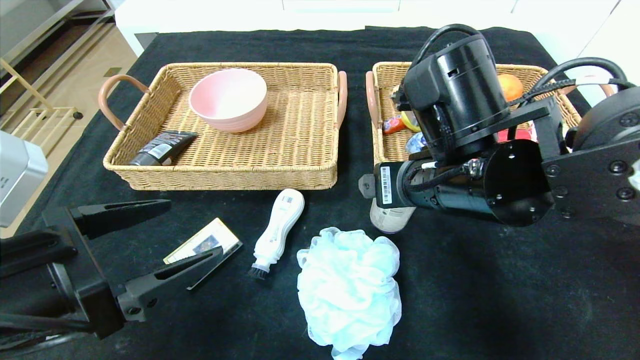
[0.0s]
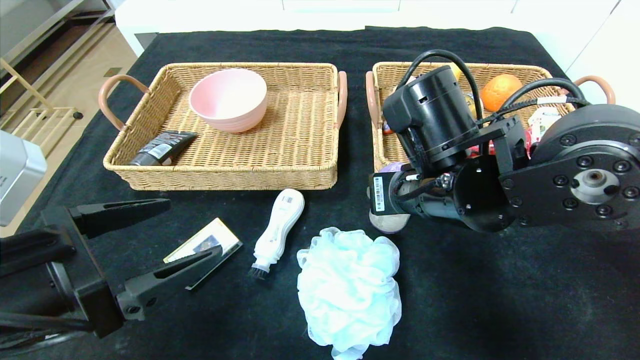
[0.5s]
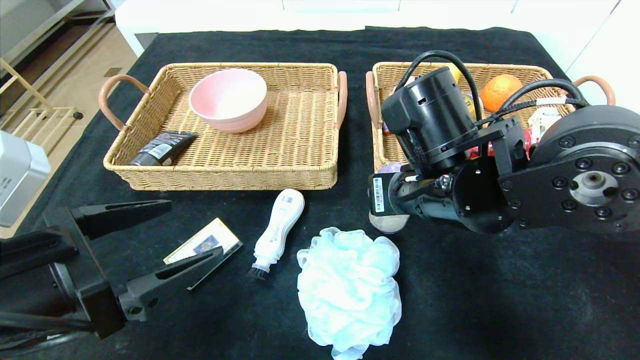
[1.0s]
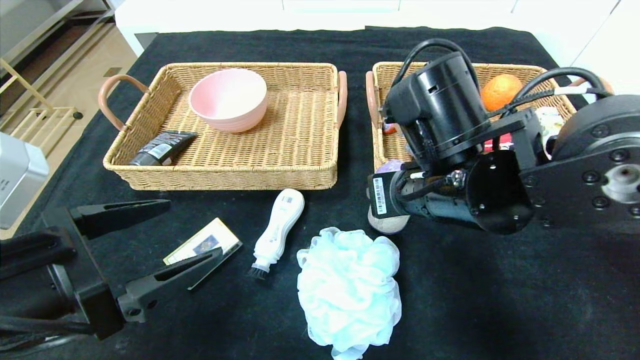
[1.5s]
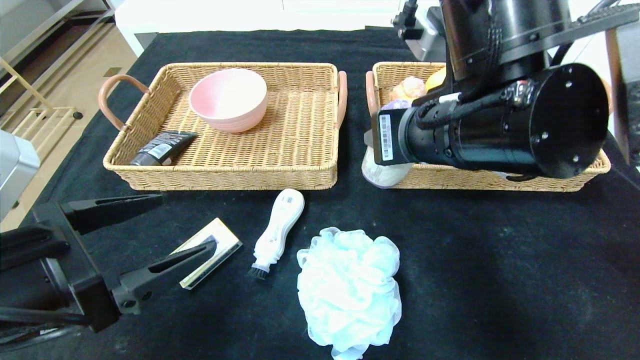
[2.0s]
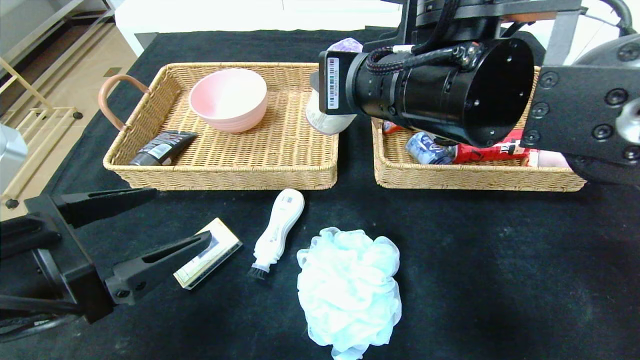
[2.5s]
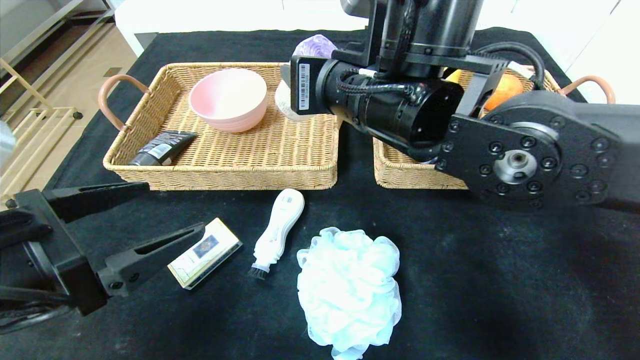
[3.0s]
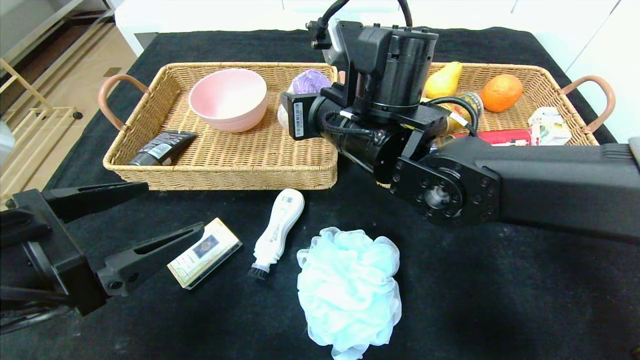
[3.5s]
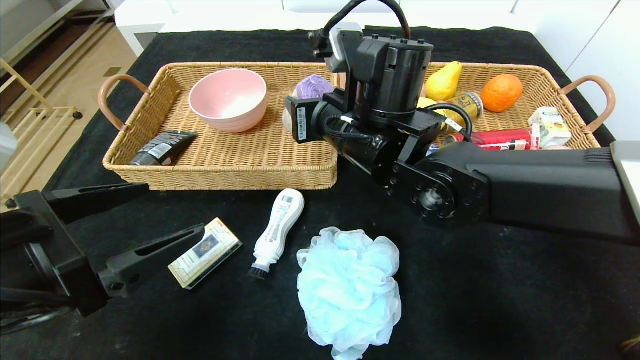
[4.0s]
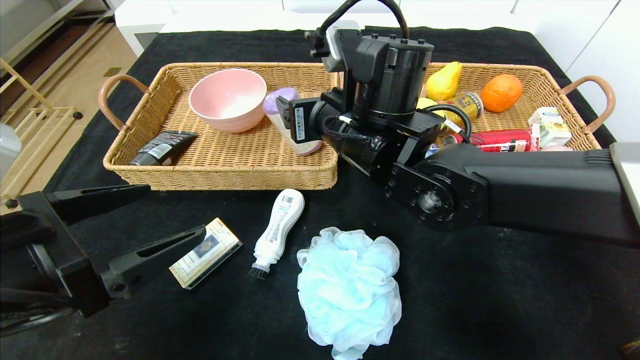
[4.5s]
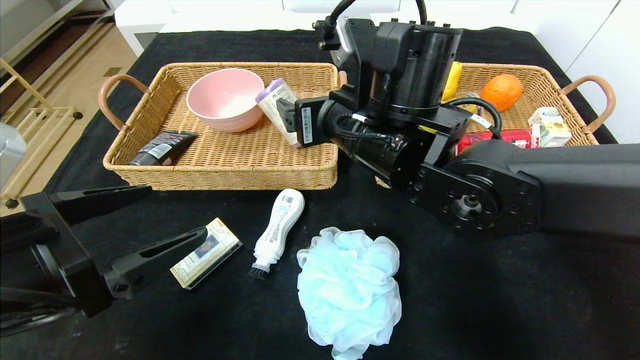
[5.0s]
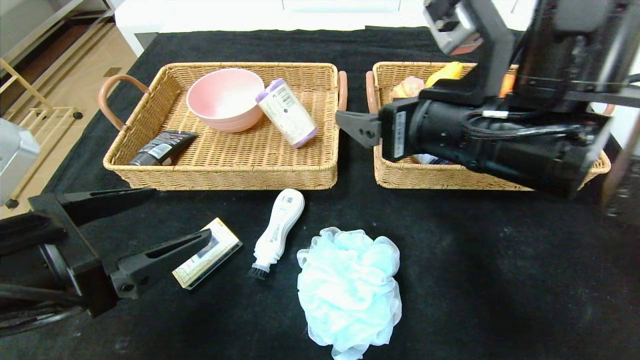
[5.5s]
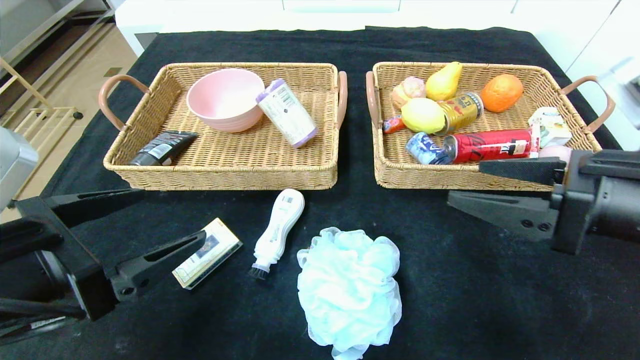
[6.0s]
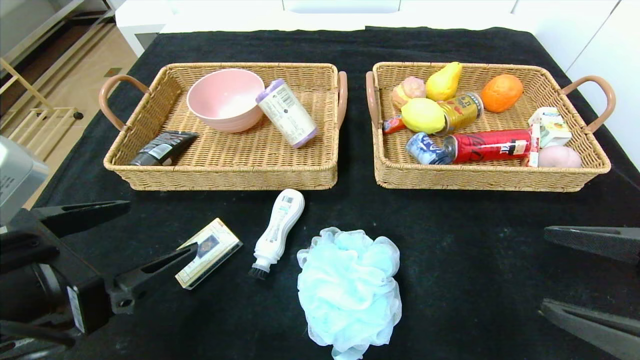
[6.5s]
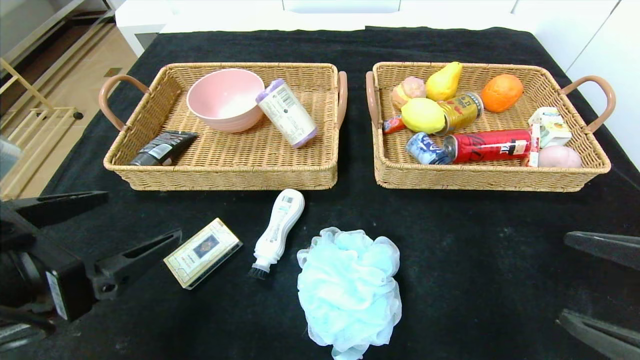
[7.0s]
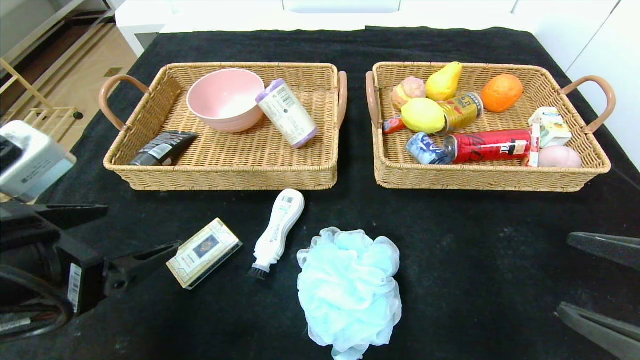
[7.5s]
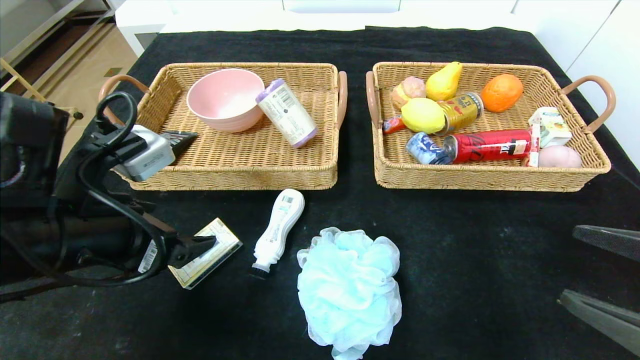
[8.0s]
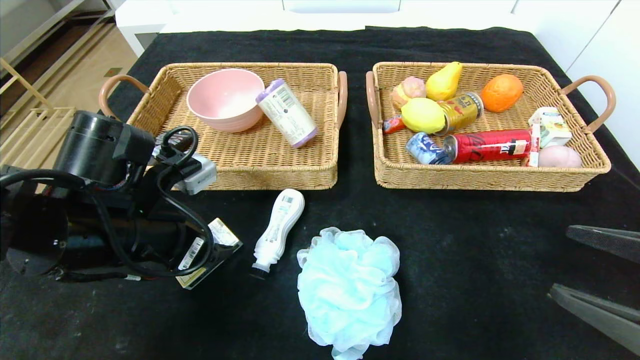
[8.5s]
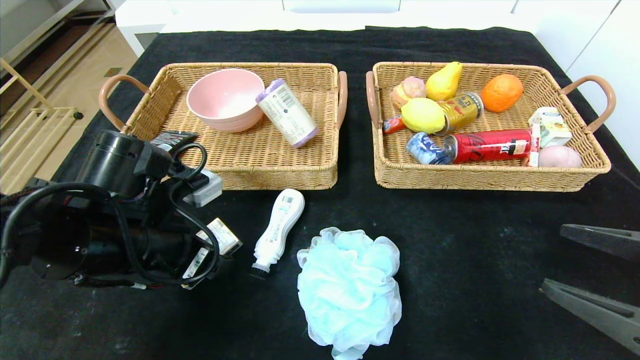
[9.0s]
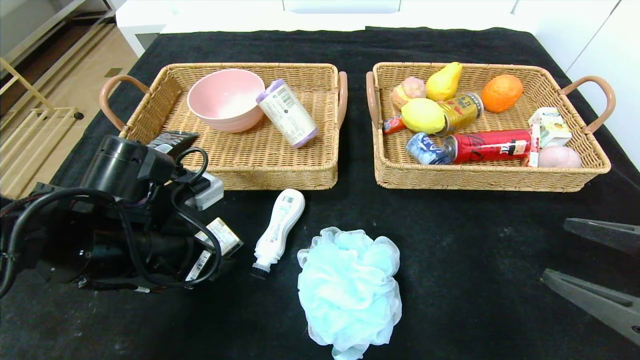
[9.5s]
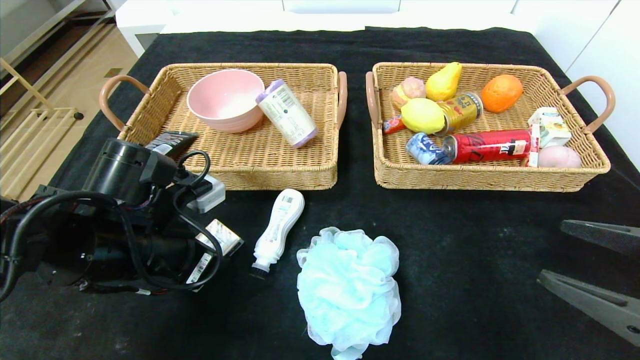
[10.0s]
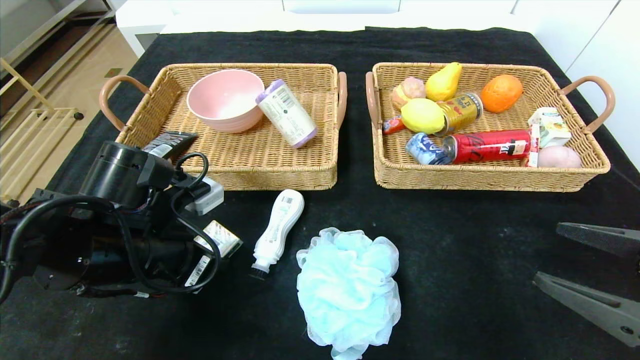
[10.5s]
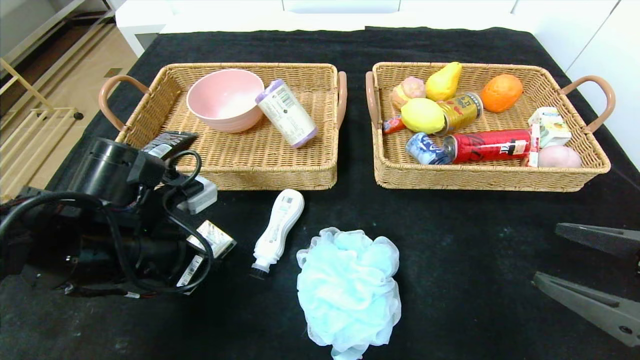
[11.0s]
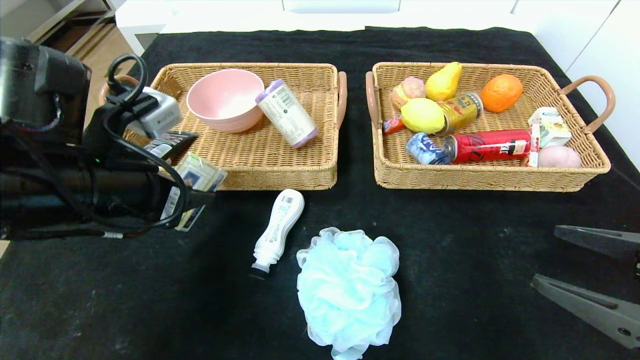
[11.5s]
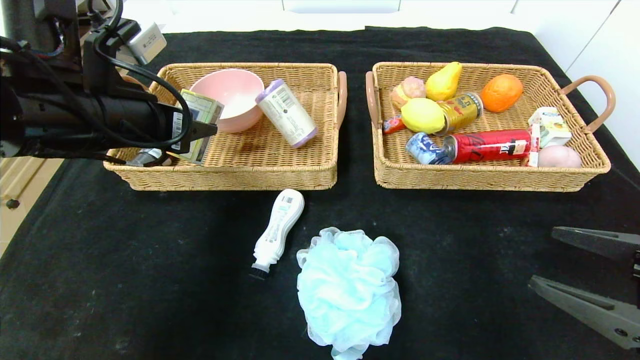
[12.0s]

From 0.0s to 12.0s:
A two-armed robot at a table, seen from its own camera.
From 0.0s to 2.0s: The right gripper is displaced upward by some 5 cm, and closes up.
From 2.0s to 4.0s: The right gripper shifts some 10 cm forward and to the left.
From 4.0s to 6.0s: The right gripper heads to the right and backward, covering approximately 25 cm, and opens its fingers.
From 6.0s to 8.0s: The left gripper is displaced forward by roughly 5 cm. The right gripper heads backward, to the right and downward, covering about 10 cm.
From 8.0s to 10.0s: The left gripper shifts some 5 cm downward, and closes its fingers.
From 10.0s to 12.0s: The left gripper goes roughly 15 cm upward.

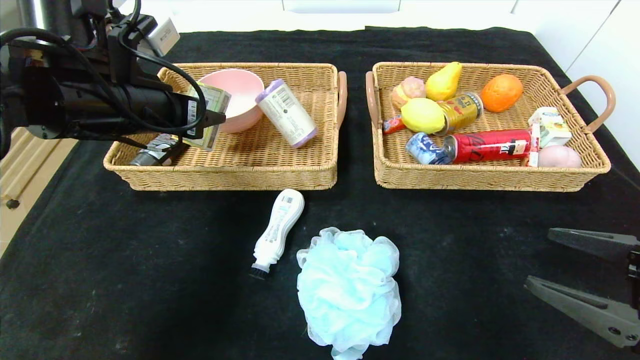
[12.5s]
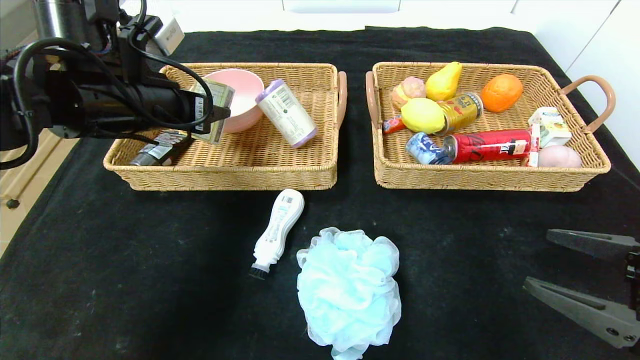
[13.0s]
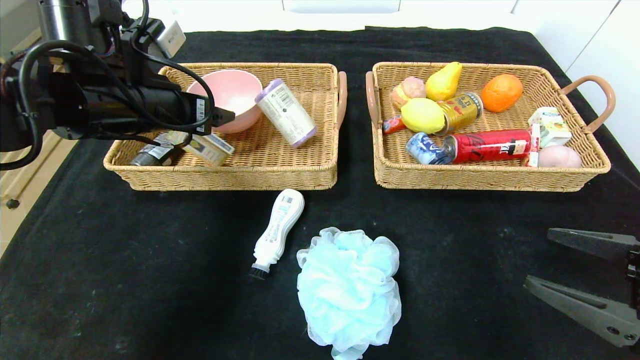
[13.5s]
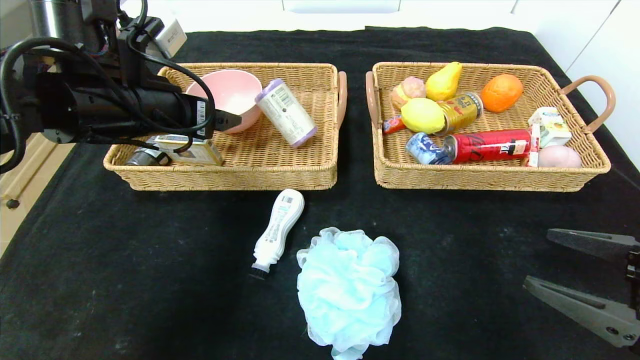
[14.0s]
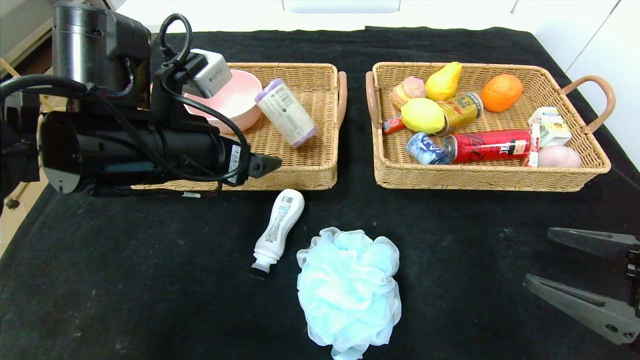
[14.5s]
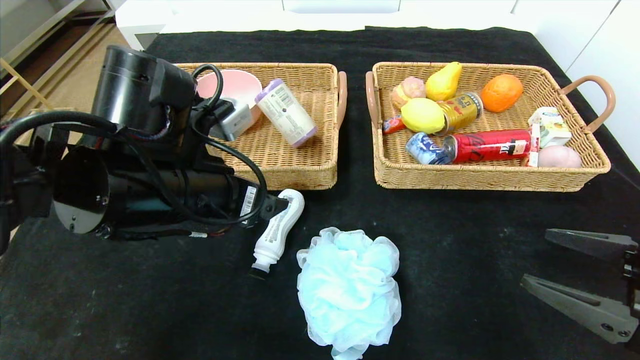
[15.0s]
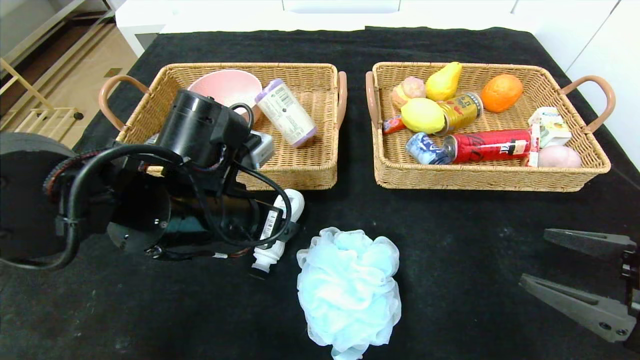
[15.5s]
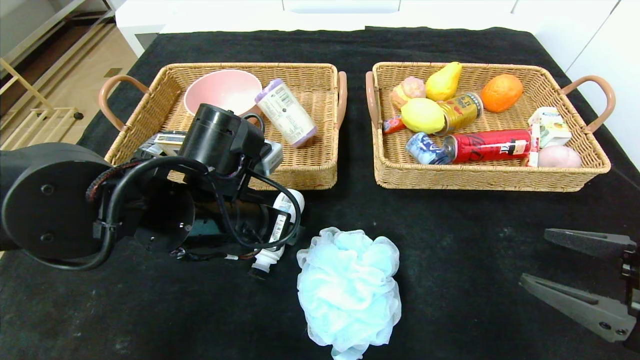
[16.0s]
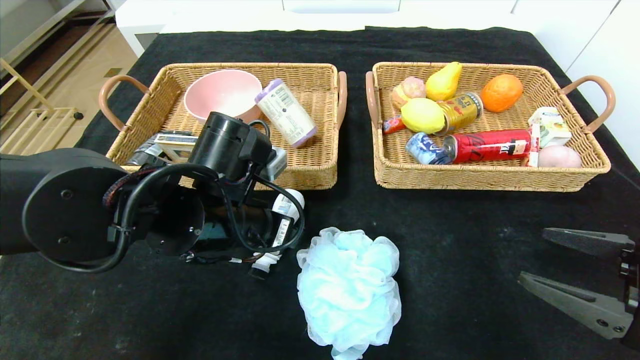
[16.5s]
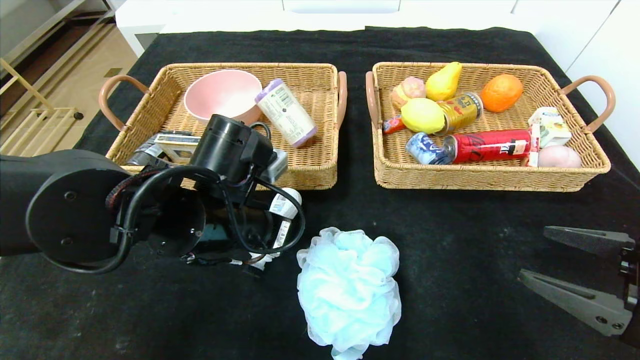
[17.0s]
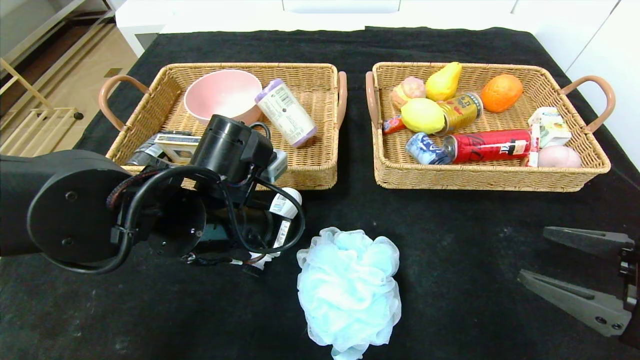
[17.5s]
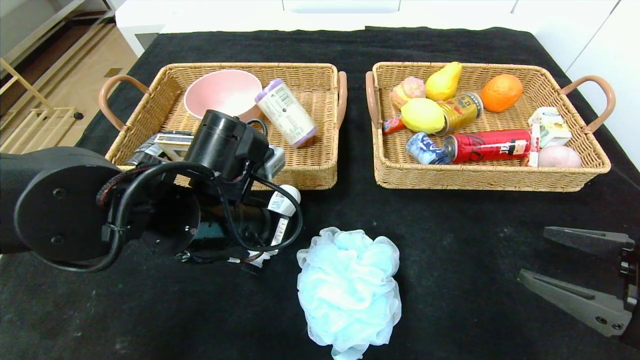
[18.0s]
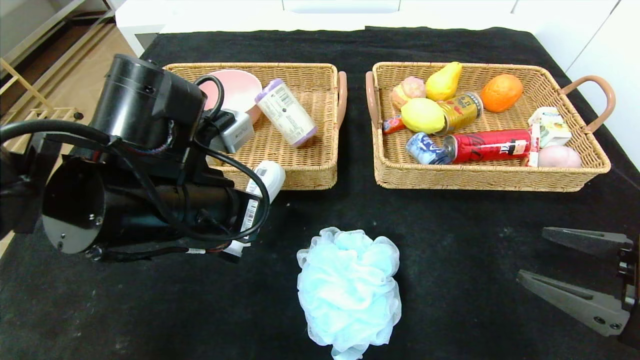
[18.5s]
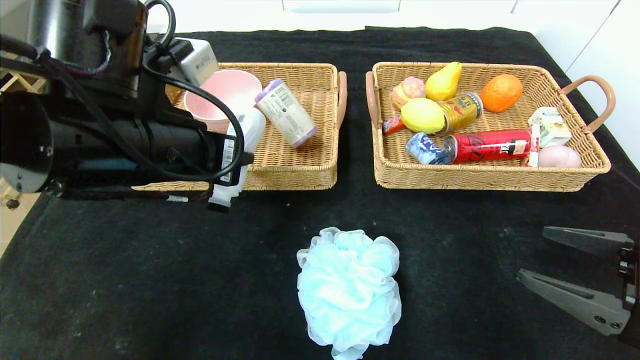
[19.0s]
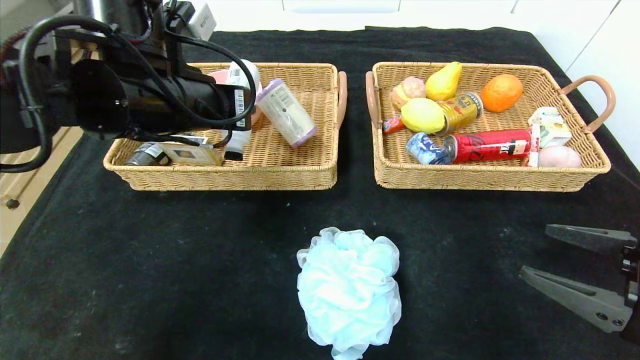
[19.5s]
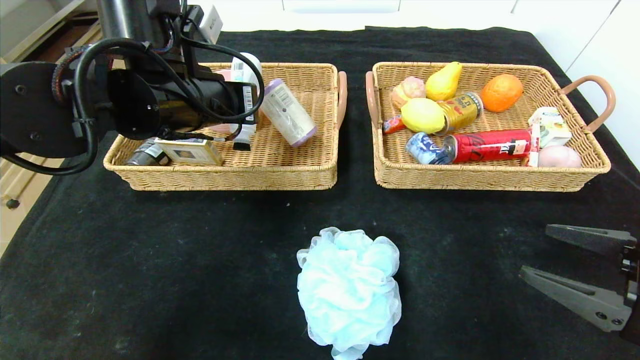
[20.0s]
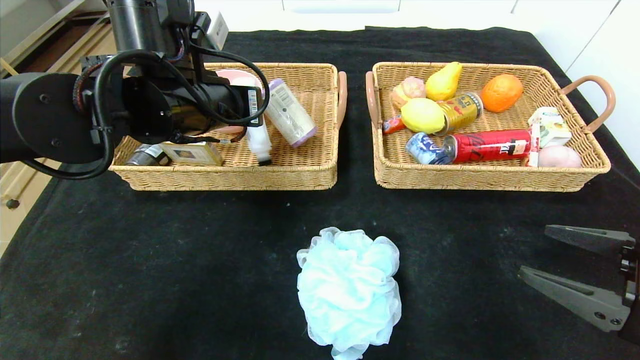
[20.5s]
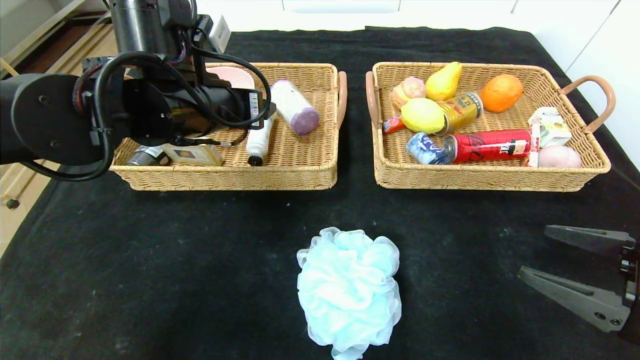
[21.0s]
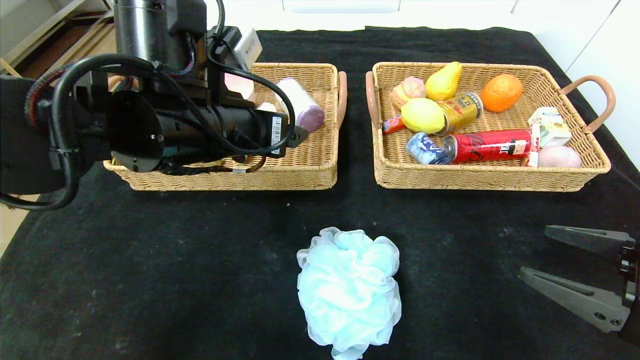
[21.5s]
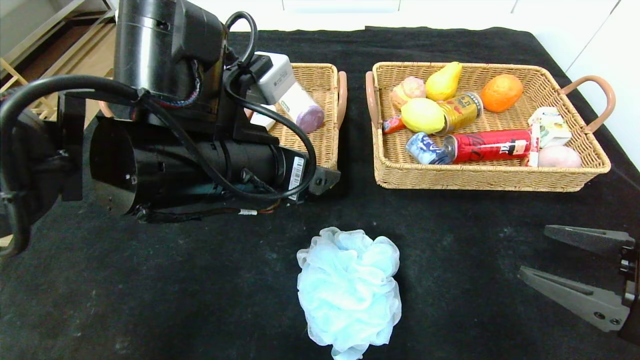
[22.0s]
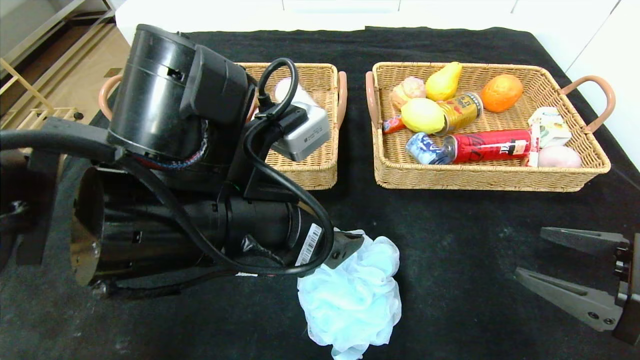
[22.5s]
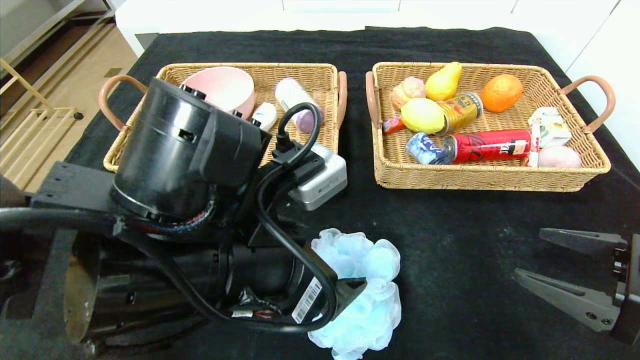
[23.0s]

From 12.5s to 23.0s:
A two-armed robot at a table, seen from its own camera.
Step, from 12.5s to 14.5s: Pick up the playing cards and put it in the left basket.
Step, from 15.0s to 22.0s: Pick up the detergent and put it in the left basket.
From 12.5s to 14.5s: The left gripper shifts approximately 5 cm to the right, and opens its fingers.
From 14.5s to 16.5s: The left gripper goes about 5 cm downward.
From 16.5s to 19.0s: The left gripper goes about 10 cm upward, and closes up.
From 19.0s to 21.0s: The left gripper goes roughly 10 cm forward, and opens.
From 21.0s to 23.0s: The left gripper goes roughly 20 cm backward, to the right and downward.
